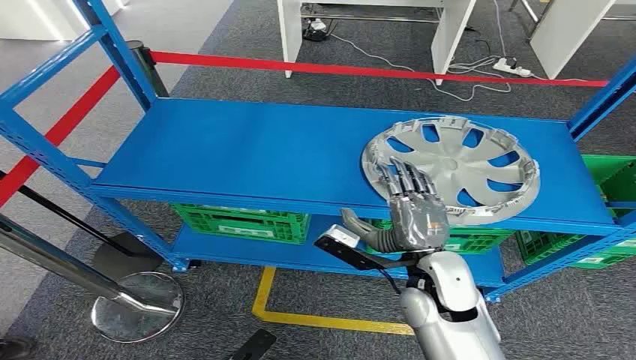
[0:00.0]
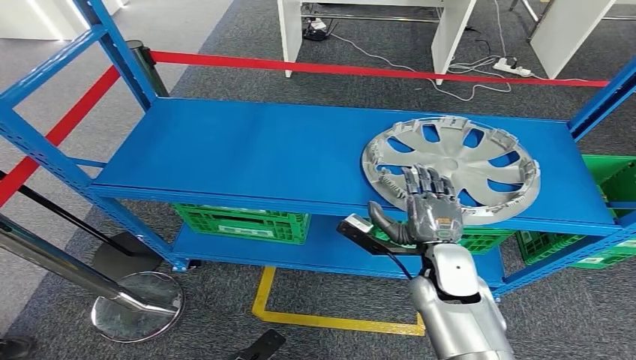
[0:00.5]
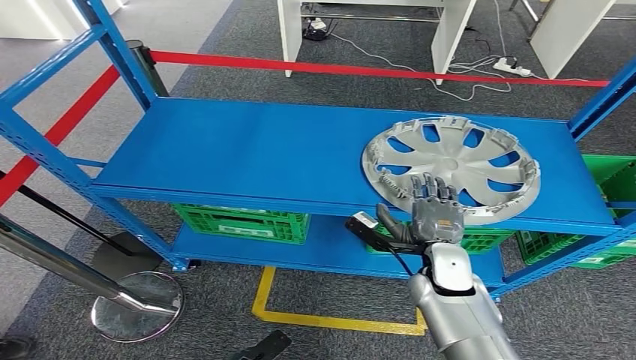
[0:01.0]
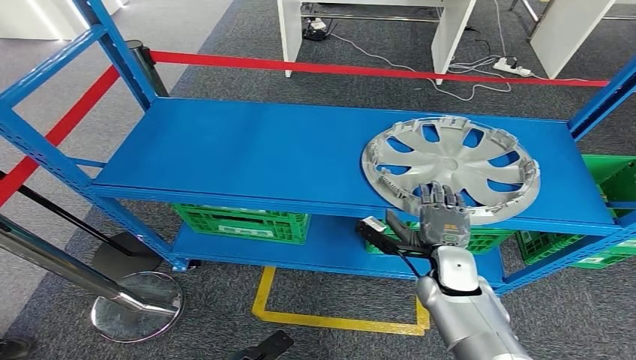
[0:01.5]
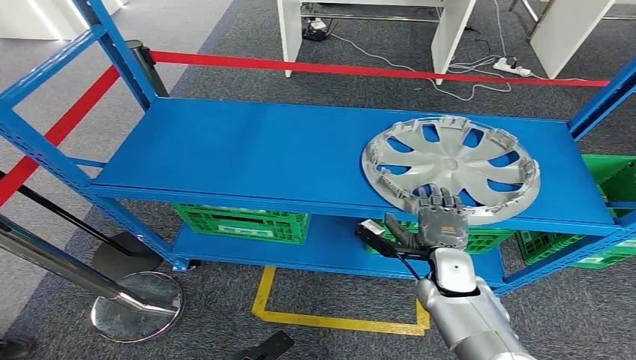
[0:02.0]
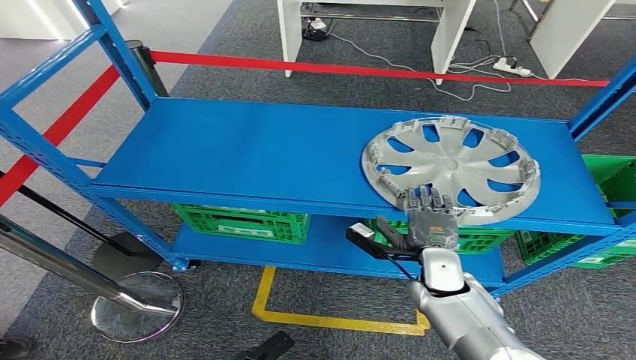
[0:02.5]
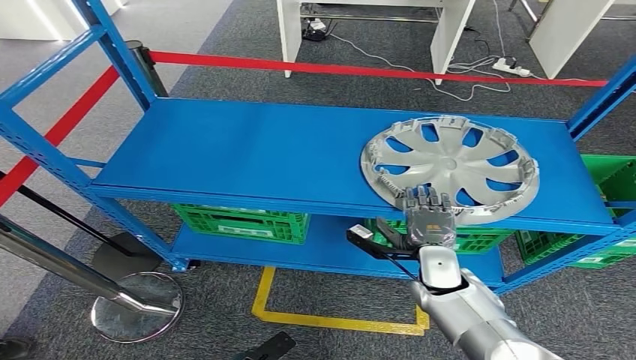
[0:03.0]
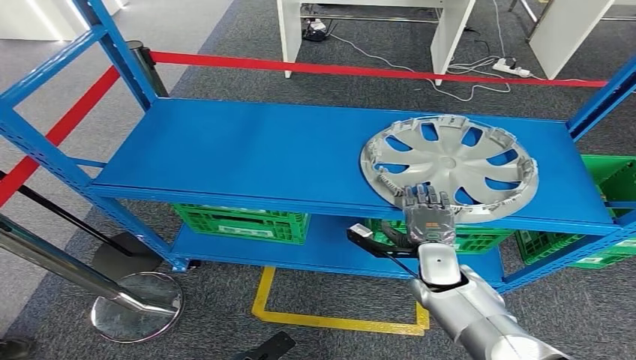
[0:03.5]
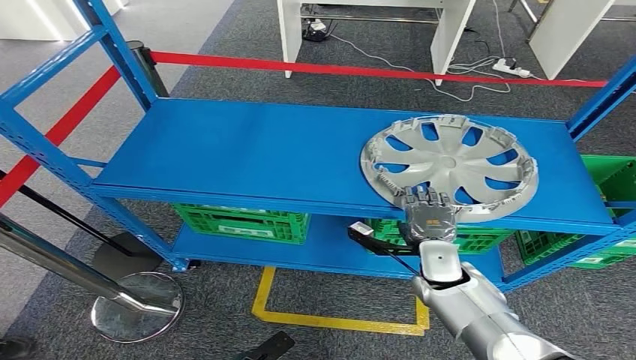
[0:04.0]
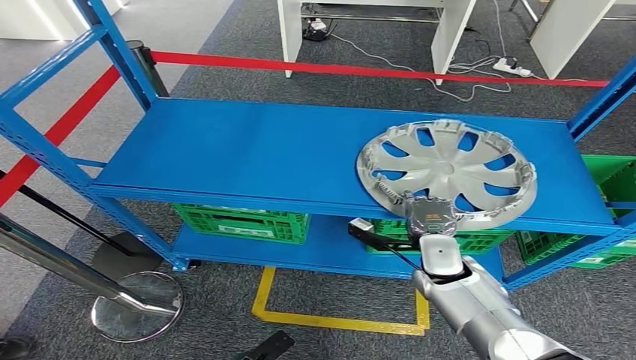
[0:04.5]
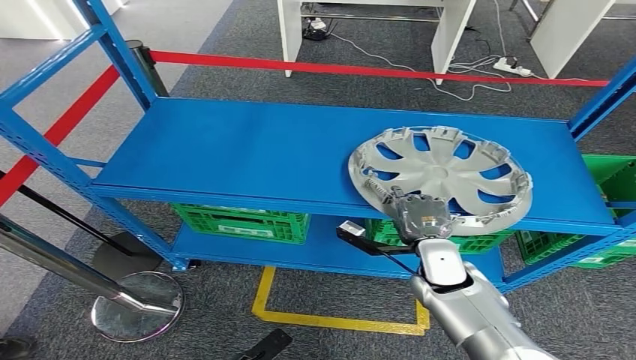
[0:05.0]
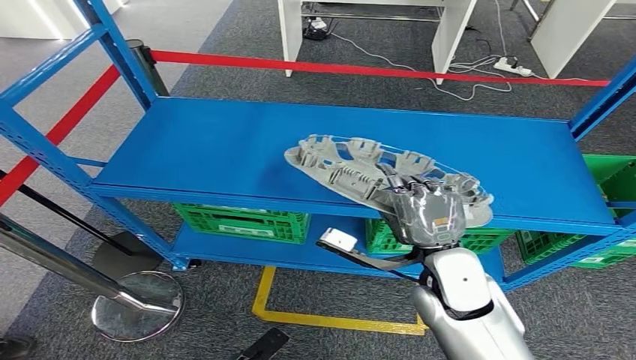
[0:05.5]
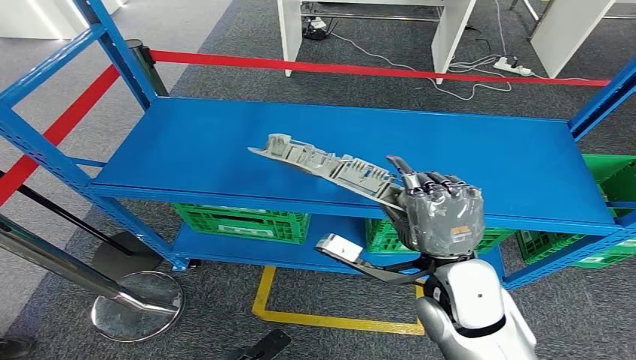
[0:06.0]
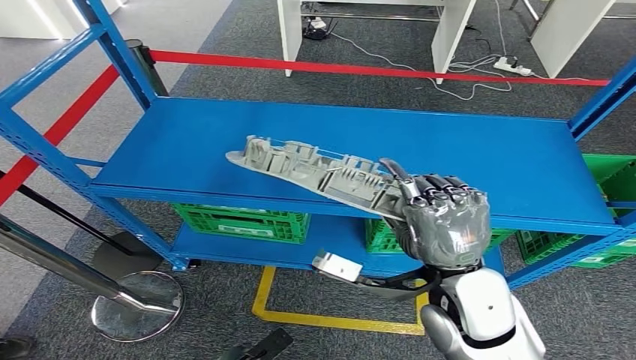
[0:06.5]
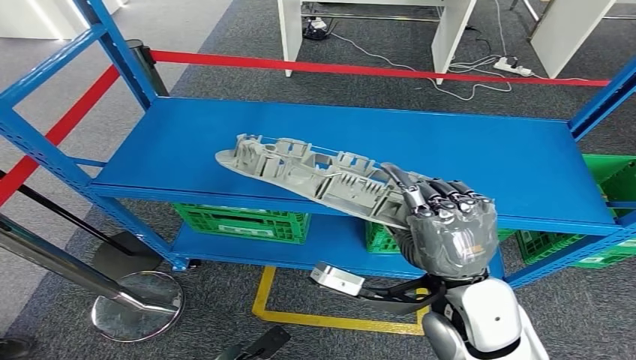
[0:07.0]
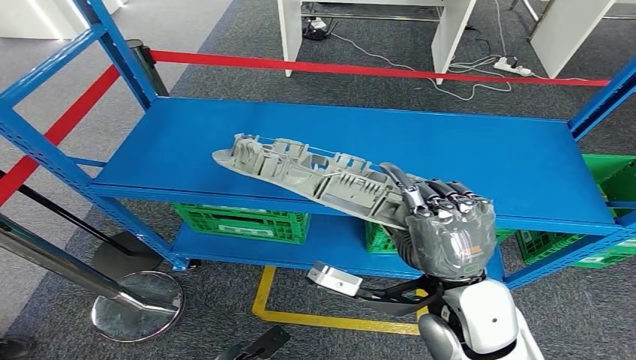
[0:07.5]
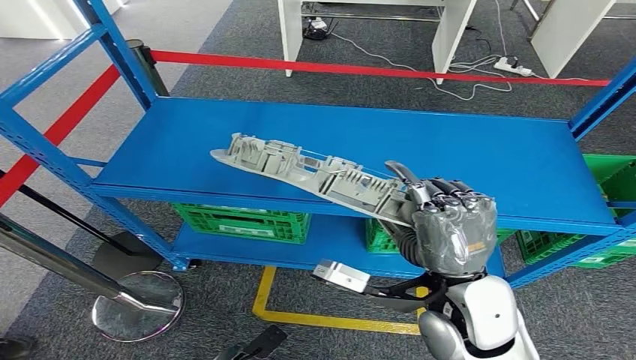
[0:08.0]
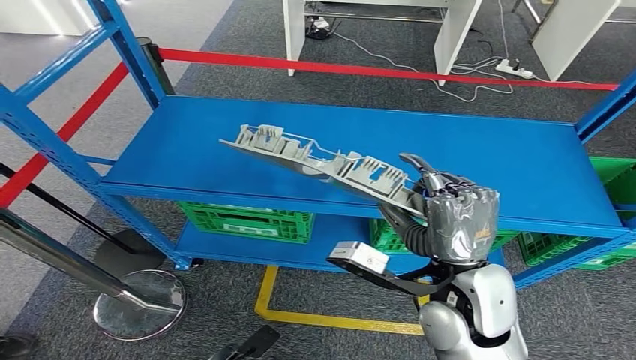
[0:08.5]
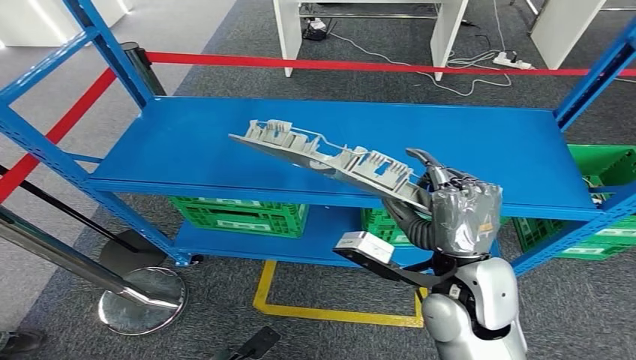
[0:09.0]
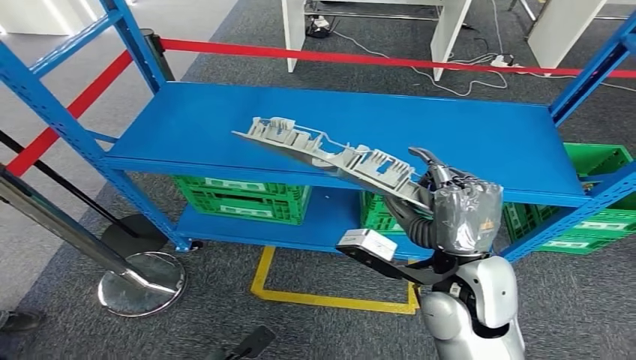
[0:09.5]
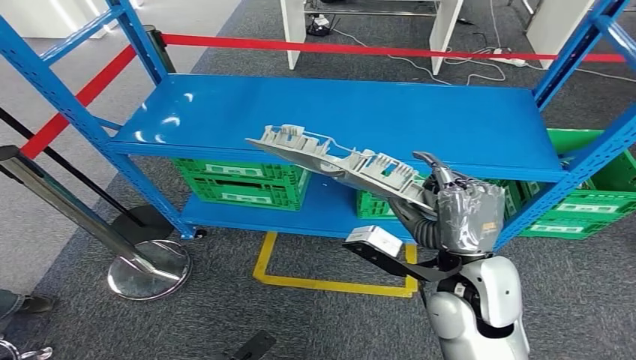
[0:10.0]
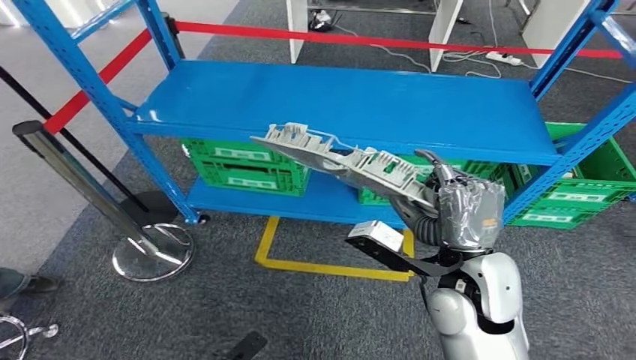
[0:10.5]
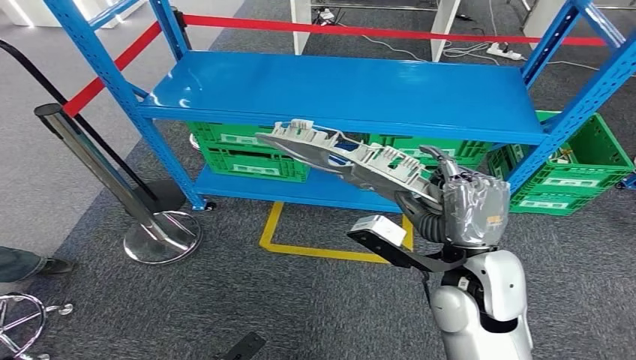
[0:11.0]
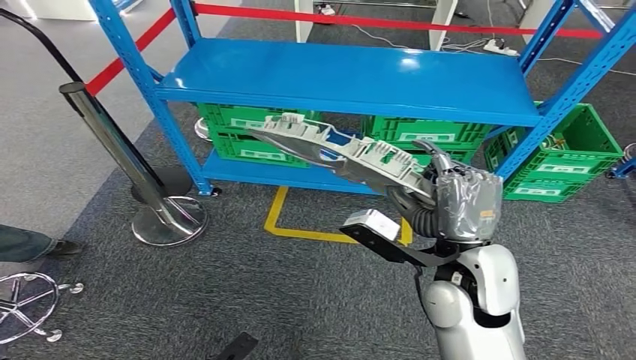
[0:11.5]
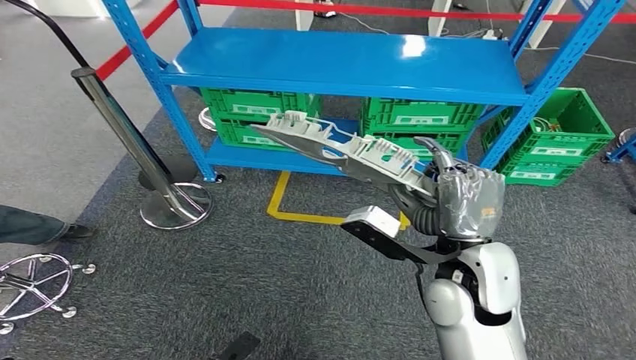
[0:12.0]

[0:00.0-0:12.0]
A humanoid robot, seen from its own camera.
Step, 0:00.0 to 0:09.0: Take small components from the rack.
0:02.0 to 0:04.0: The hands move only a little.
0:04.0 to 0:06.0: The right hand heads upward and backward, covering some 15 cm.
0:06.0 to 0:08.0: The hands move only a little.

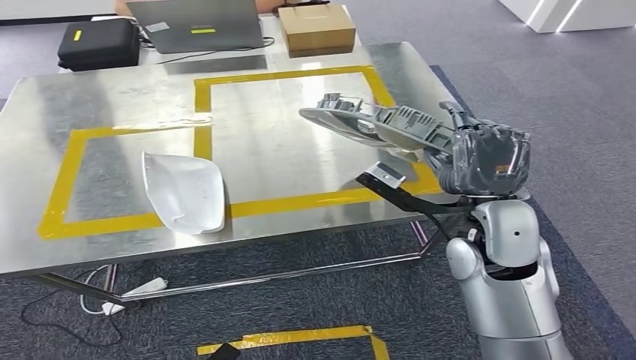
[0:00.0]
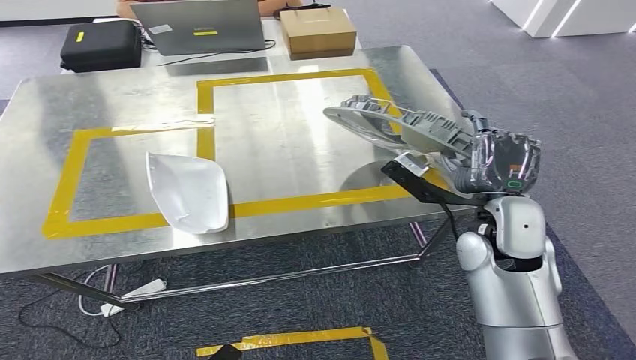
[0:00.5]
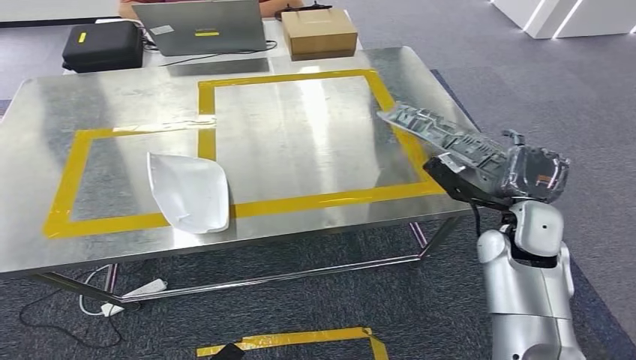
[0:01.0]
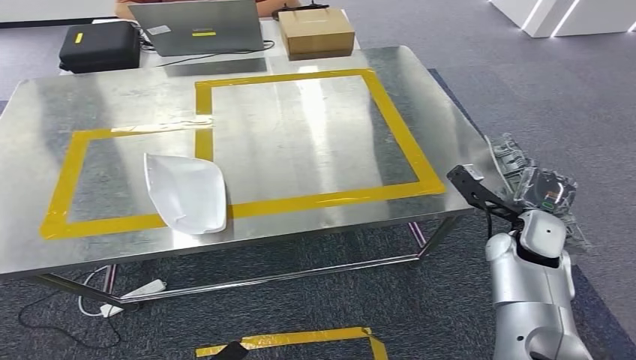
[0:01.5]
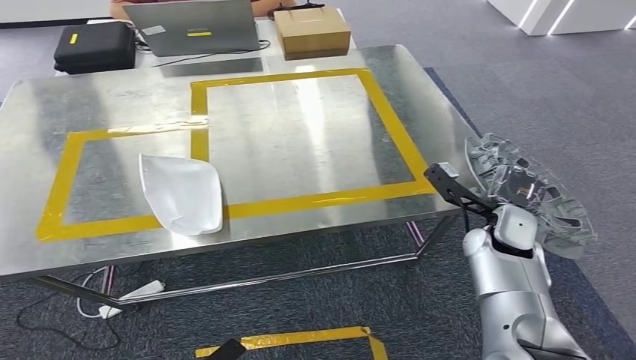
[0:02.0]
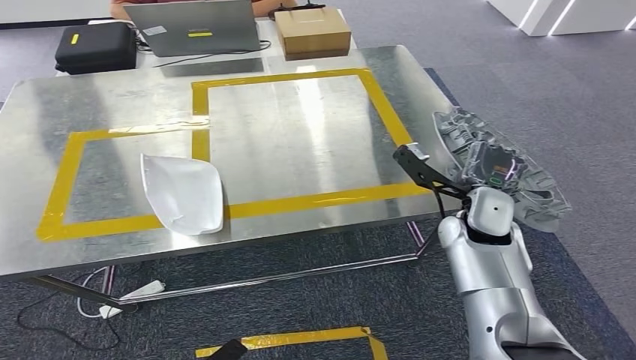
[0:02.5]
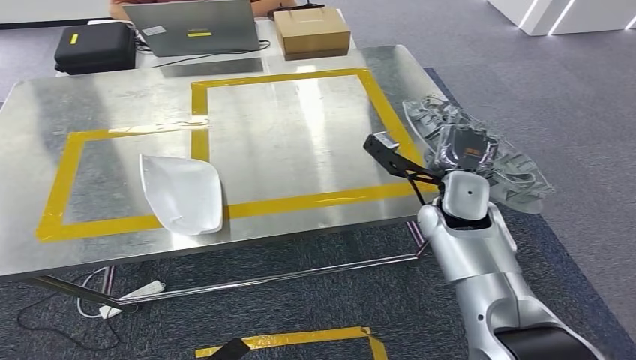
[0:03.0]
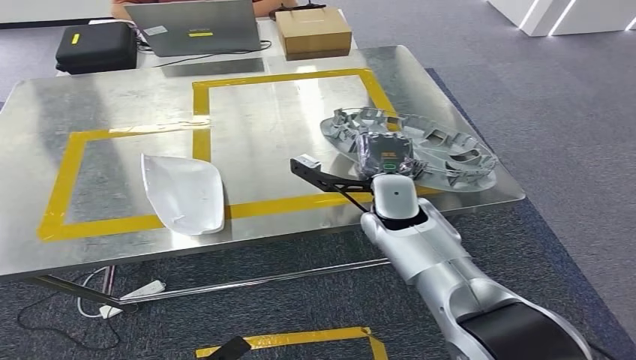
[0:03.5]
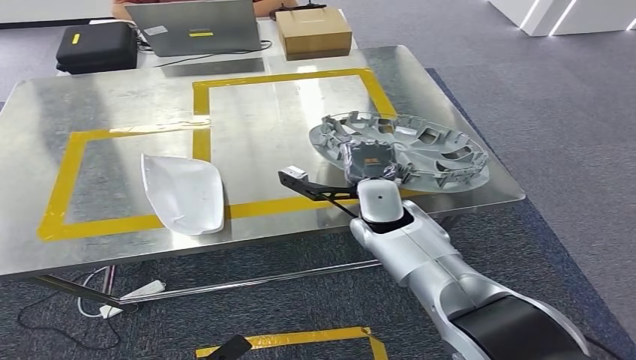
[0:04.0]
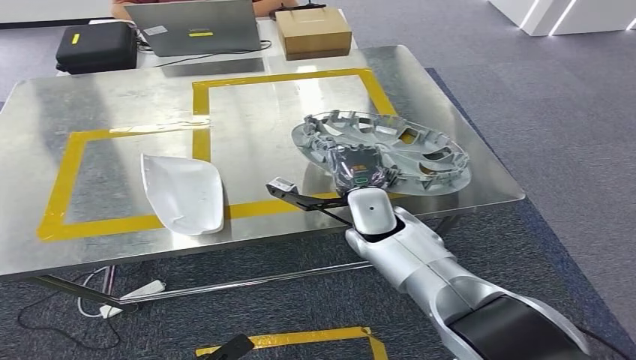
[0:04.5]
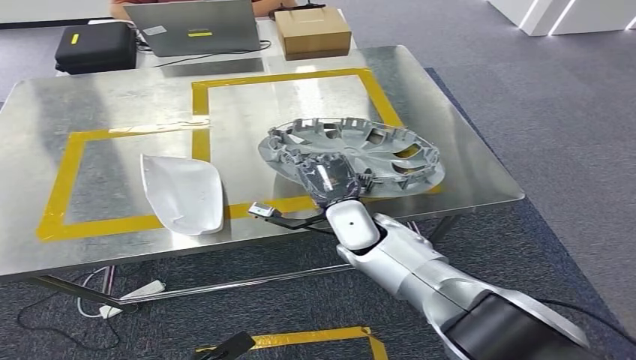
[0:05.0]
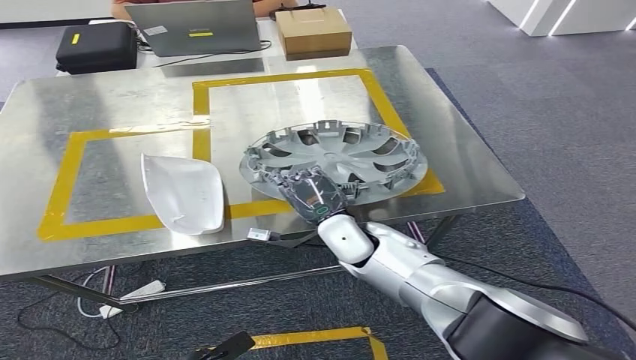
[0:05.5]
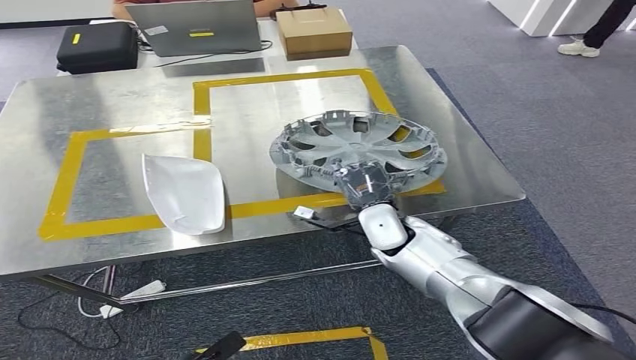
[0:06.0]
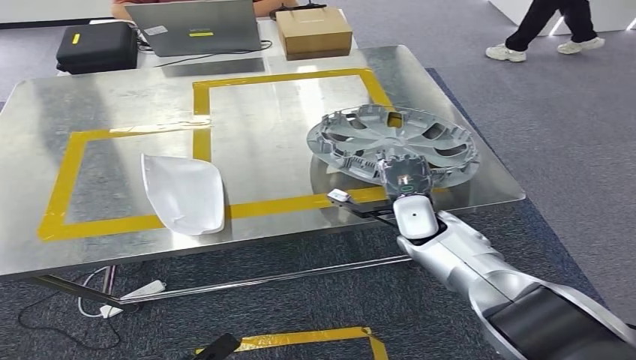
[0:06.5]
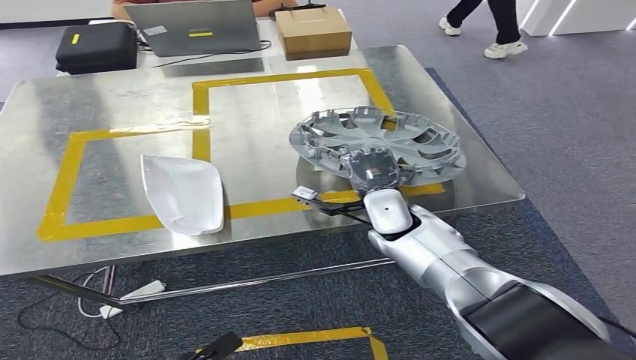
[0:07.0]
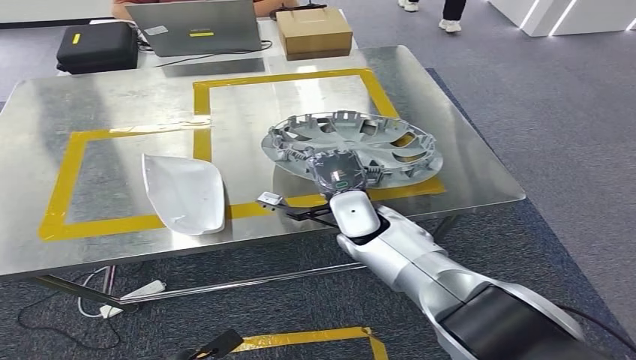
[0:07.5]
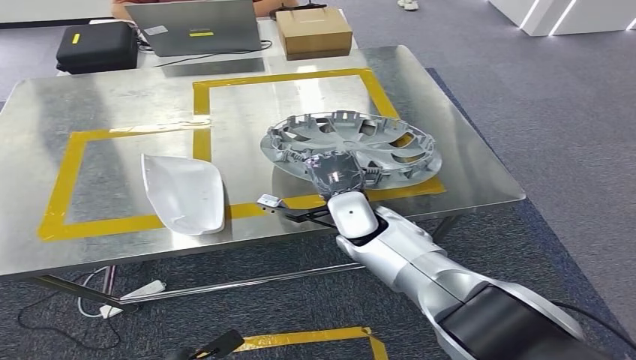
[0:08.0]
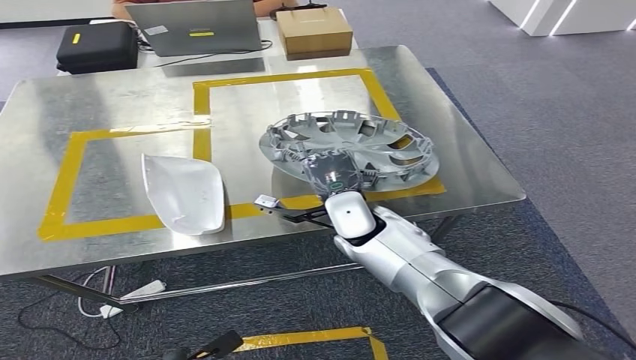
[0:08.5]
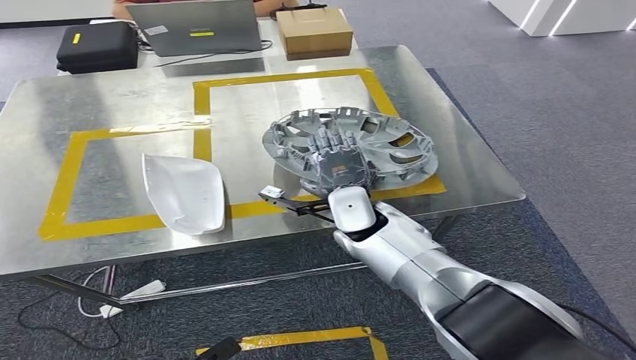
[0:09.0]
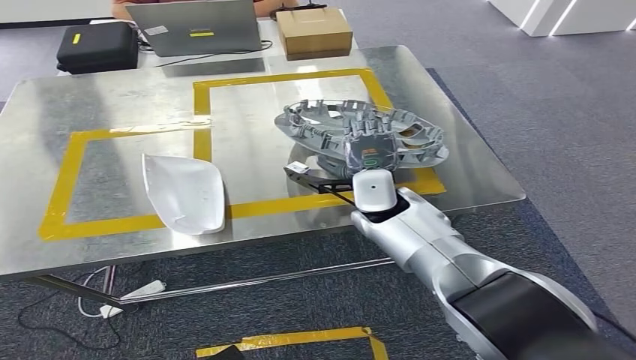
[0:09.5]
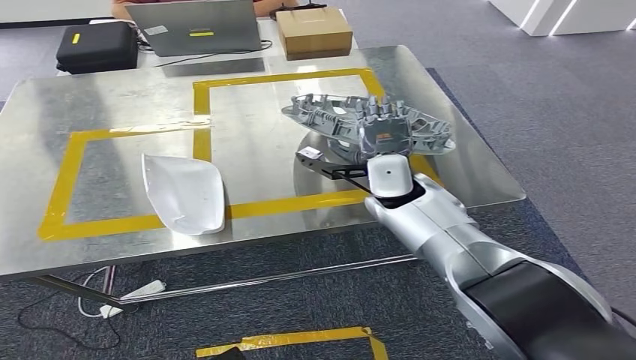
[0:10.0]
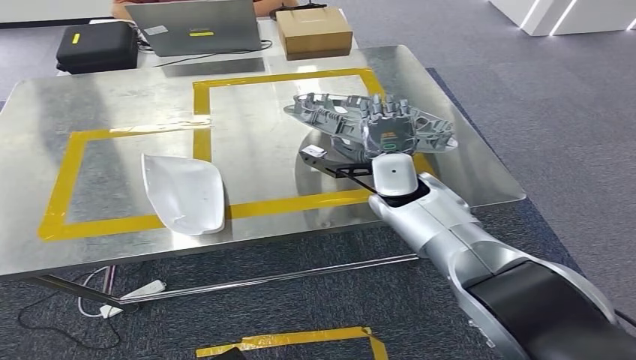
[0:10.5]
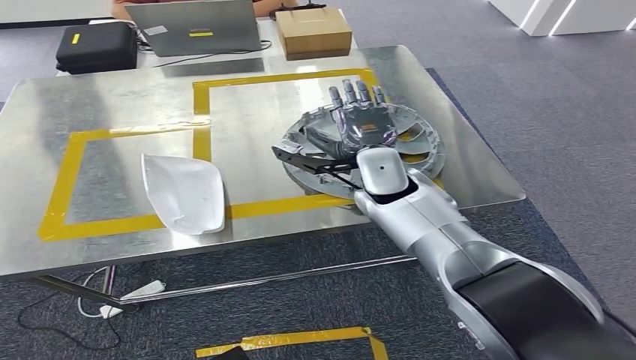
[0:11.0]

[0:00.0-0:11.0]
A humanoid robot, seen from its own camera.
Step, 0:00.0 to 0:02.5: Move the small parts to the workbench.
0:02.0 to 0:03.5: The right hand is displaced to the left by approximately 15 cm.
0:03.5 to 0:05.5: The right hand shifts approximately 5 cm downward.
0:05.5 to 0:07.5: The right hand moves roughly 10 cm to the right and comes back.
0:07.5 to 0:09.0: There are only small adjustments of the hands.
0:09.0 to 0:11.0: The right hand goes roughly 5 cm upward.
